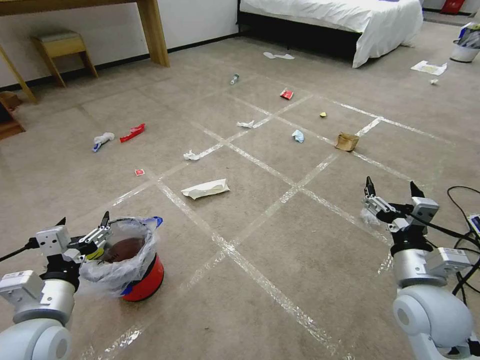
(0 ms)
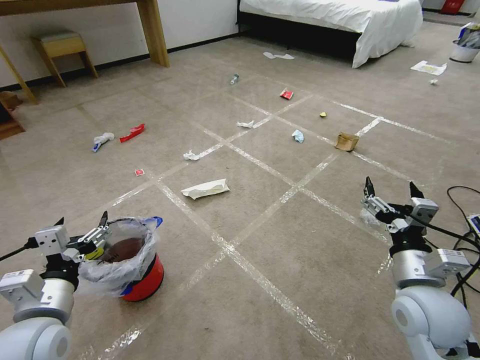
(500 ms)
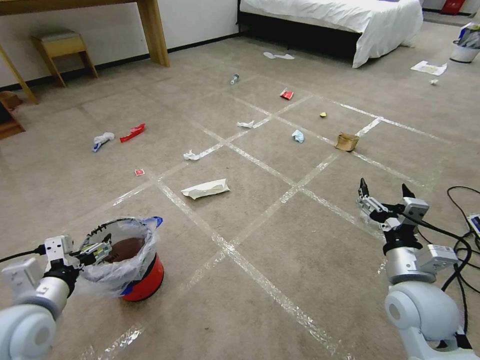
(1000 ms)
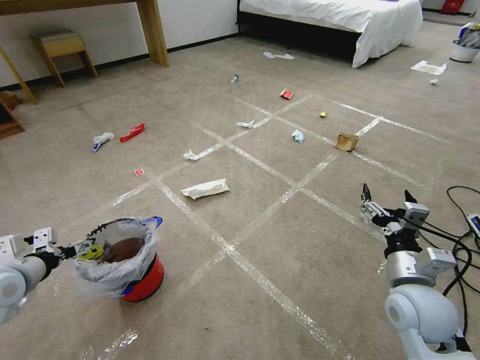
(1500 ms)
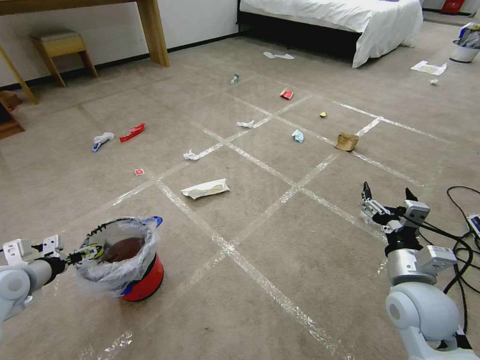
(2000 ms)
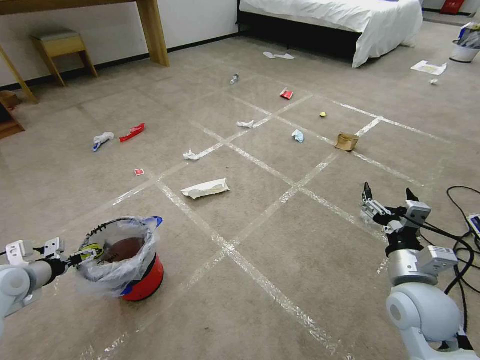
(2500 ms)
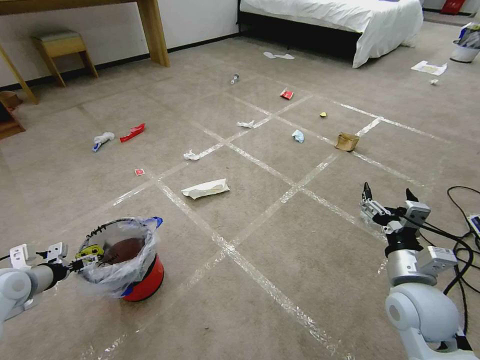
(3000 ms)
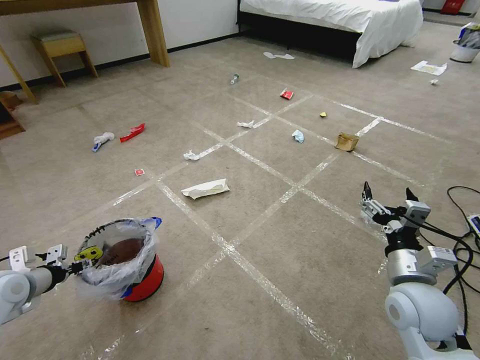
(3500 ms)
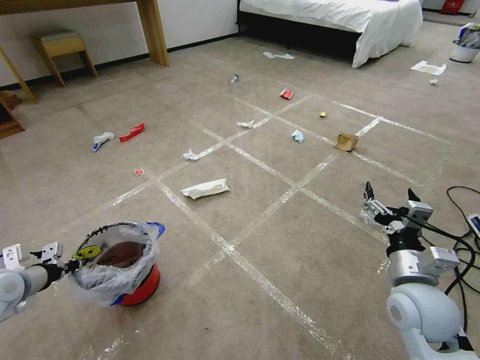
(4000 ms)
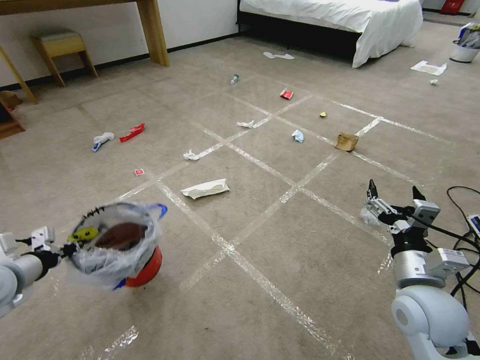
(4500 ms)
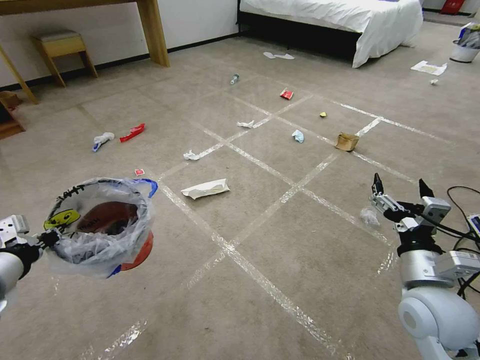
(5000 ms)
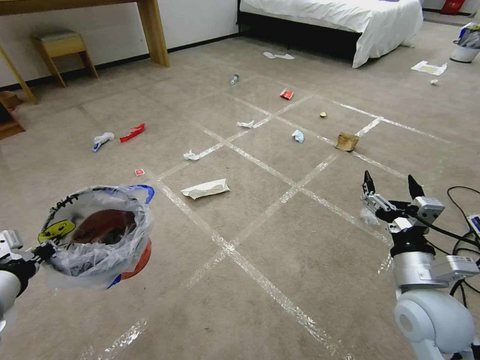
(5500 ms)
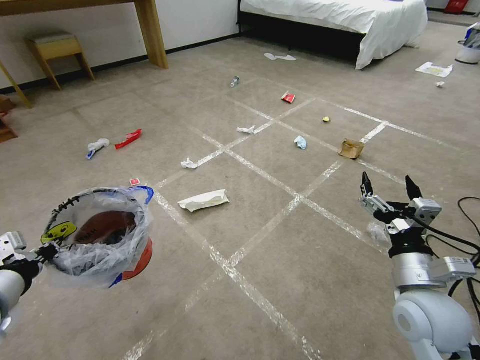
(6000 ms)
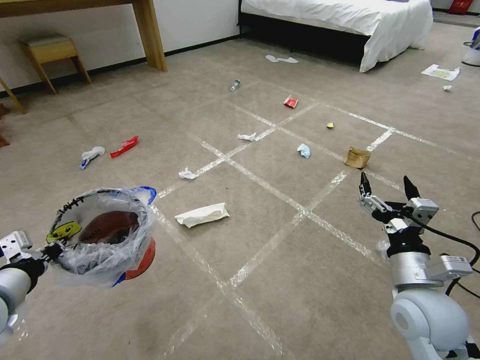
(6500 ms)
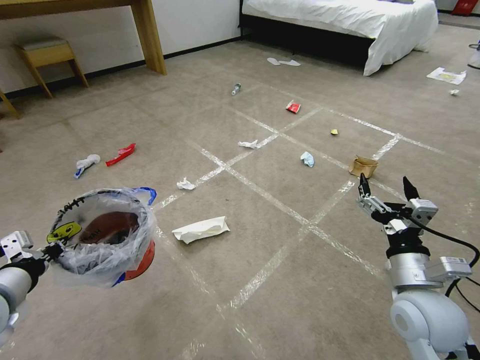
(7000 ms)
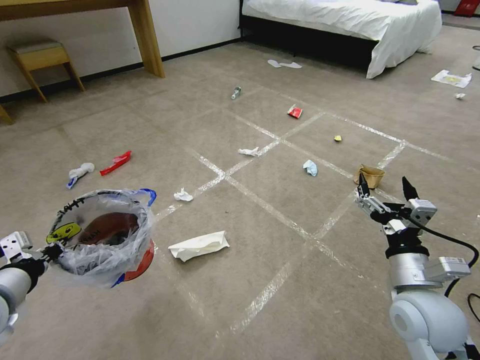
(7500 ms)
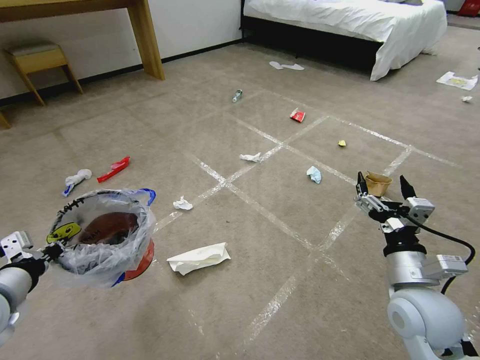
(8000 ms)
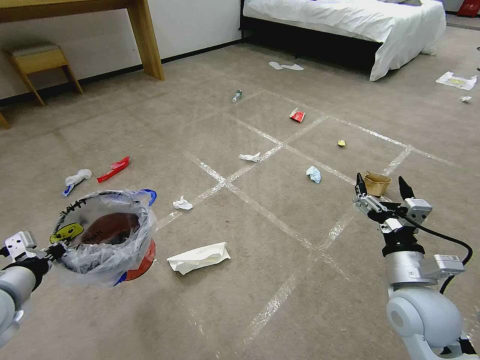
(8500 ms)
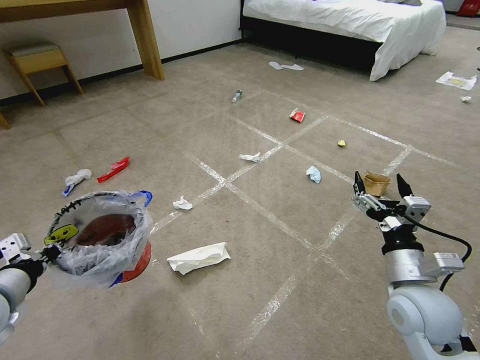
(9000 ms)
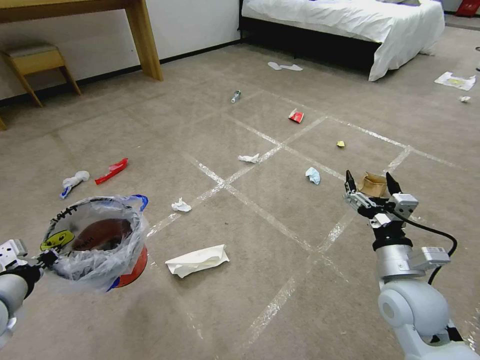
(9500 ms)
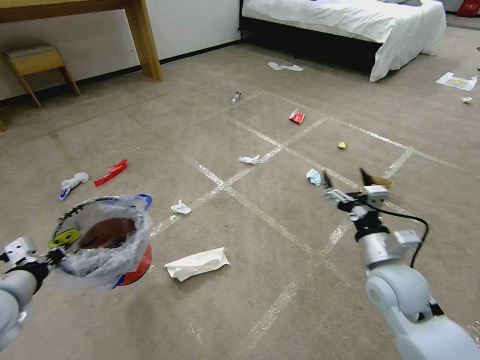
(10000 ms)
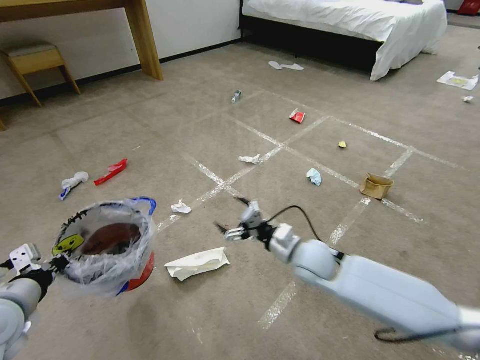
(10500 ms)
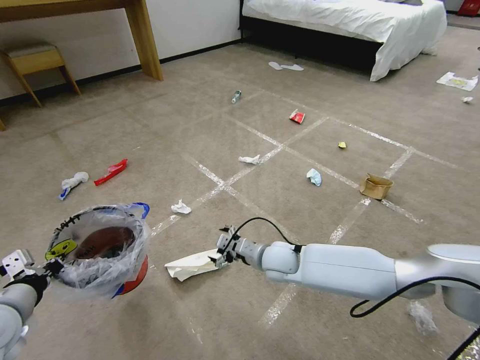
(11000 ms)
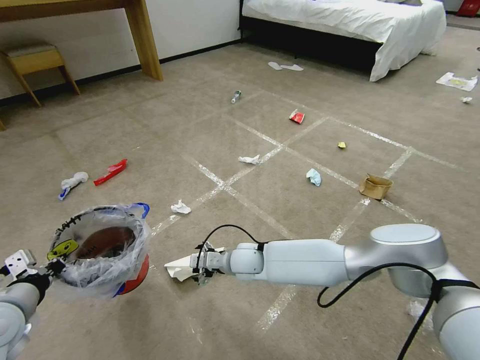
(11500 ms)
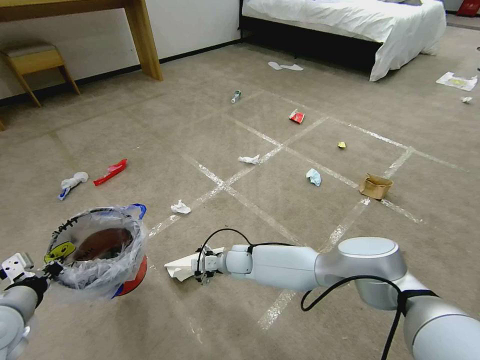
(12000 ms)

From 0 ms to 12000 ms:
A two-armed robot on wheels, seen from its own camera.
Task of the whole recording: Pick up the trash bin and place the garbage on the floor into it.
From 2000 ms to 4000 ms: The left gripper closes up.
From 4000 ms to 6000 ms: The left gripper shifts some 15 cm upward, to the right and backward.
From 8000 ms to 10000 ms: The right gripper moves forward, approximately 5 cm.
From 10000 ms to 12000 ms: The right gripper heads to the left, downward and forward, covering approximately 35 cm.

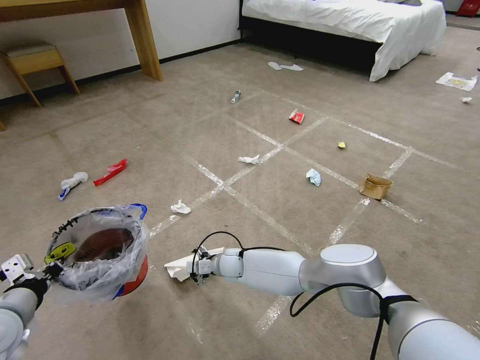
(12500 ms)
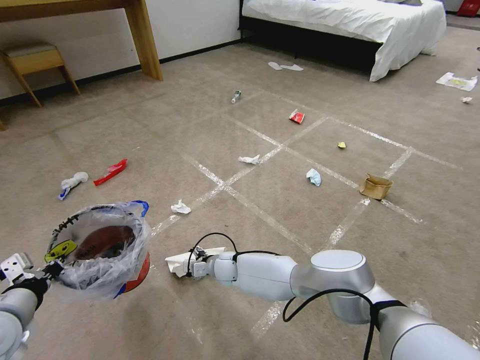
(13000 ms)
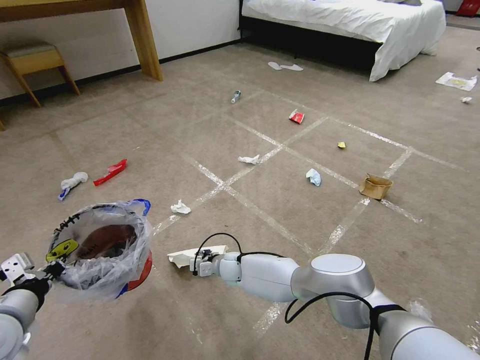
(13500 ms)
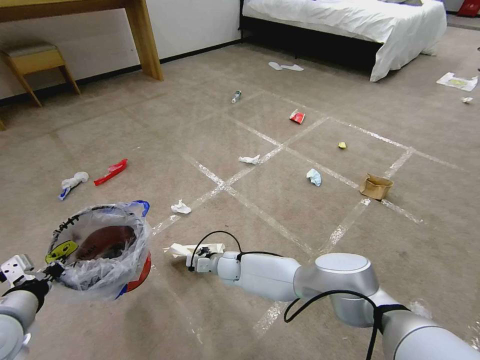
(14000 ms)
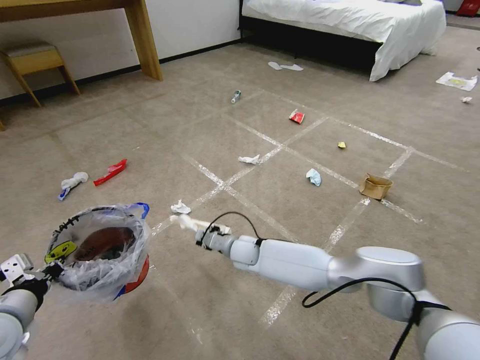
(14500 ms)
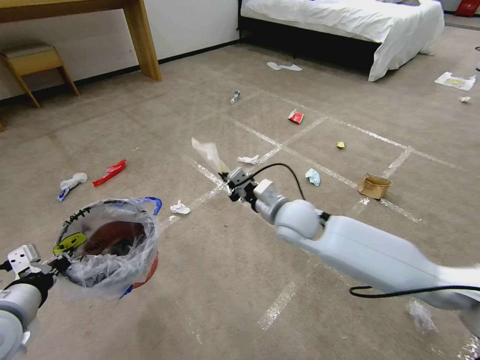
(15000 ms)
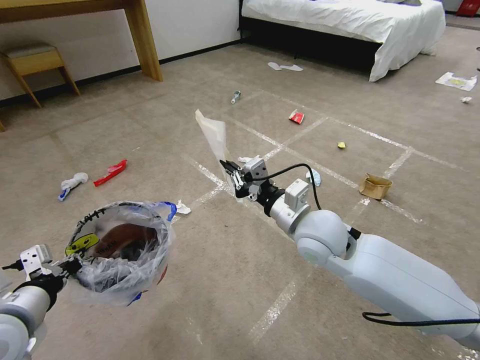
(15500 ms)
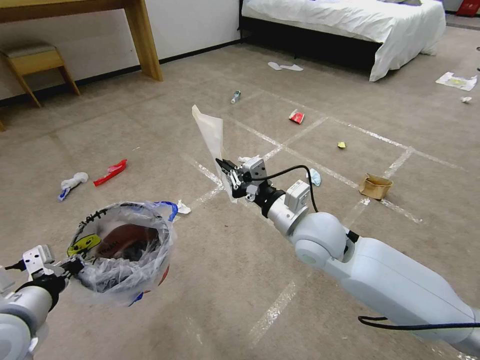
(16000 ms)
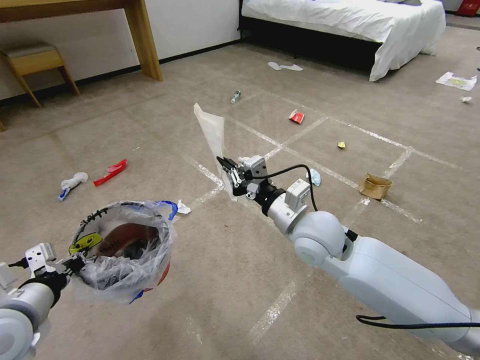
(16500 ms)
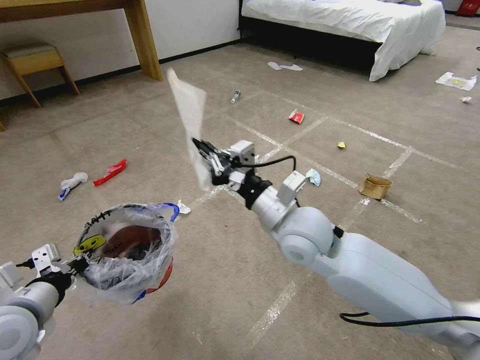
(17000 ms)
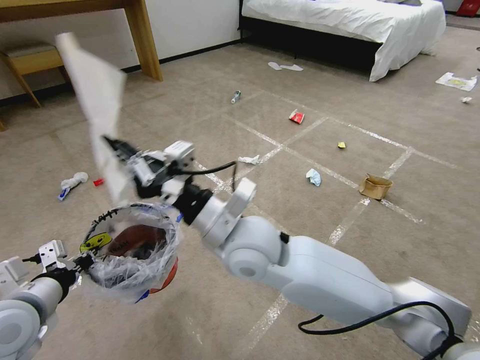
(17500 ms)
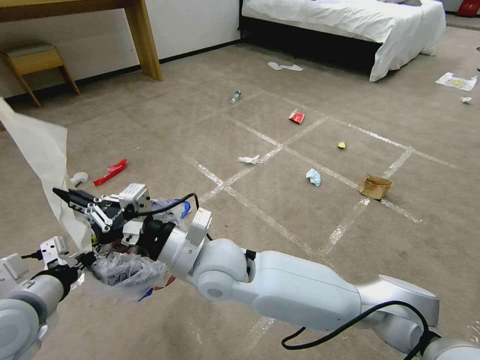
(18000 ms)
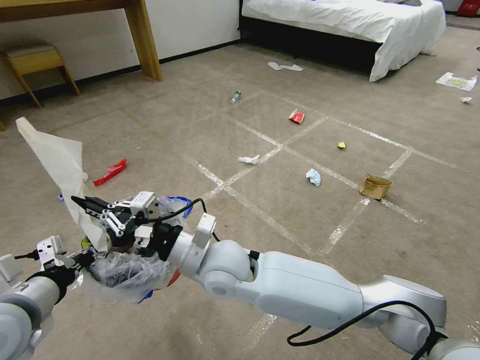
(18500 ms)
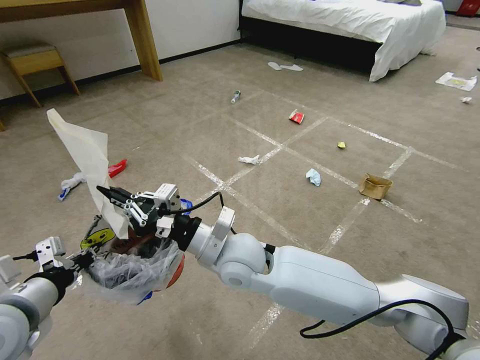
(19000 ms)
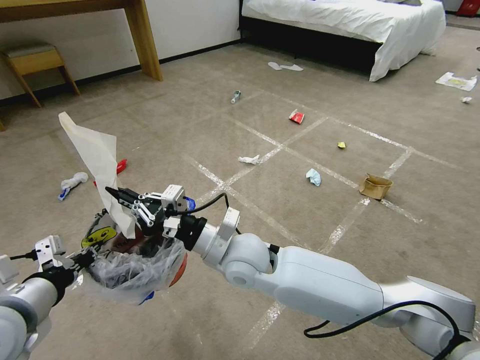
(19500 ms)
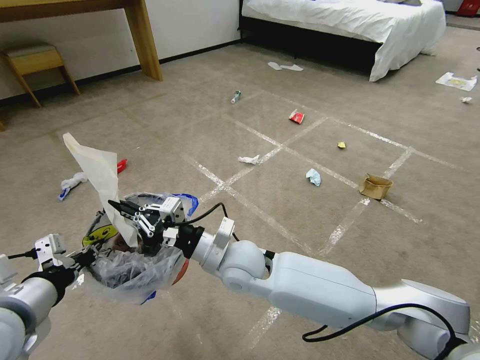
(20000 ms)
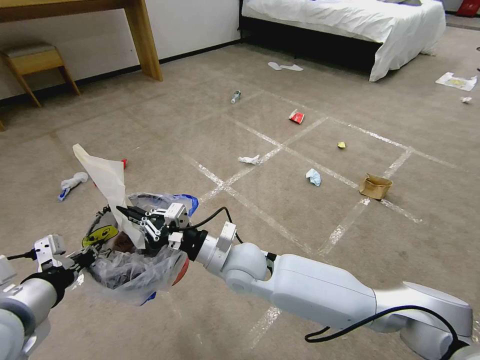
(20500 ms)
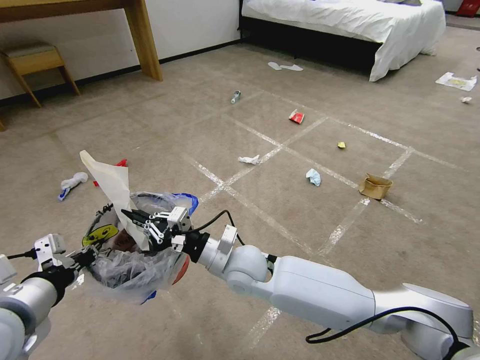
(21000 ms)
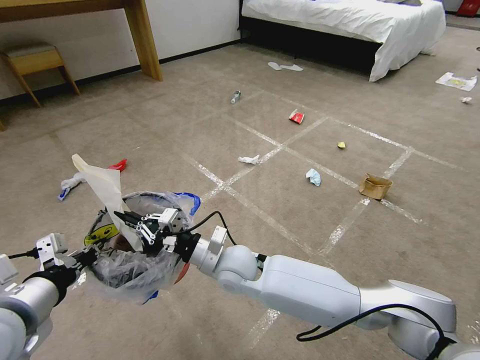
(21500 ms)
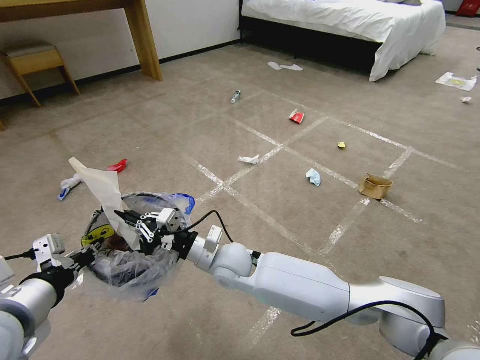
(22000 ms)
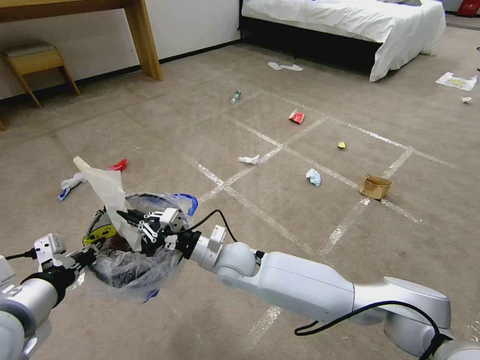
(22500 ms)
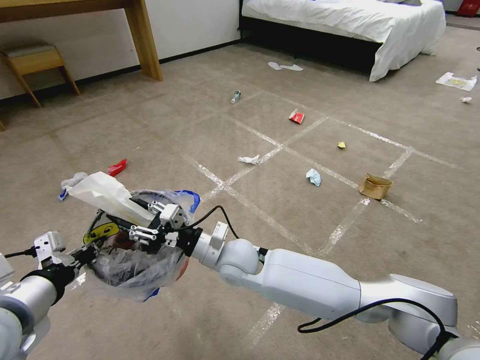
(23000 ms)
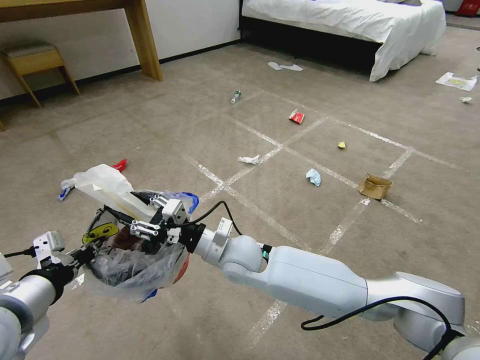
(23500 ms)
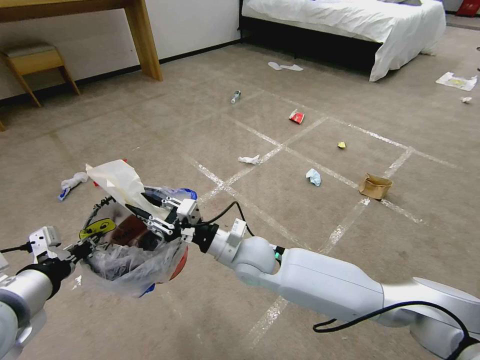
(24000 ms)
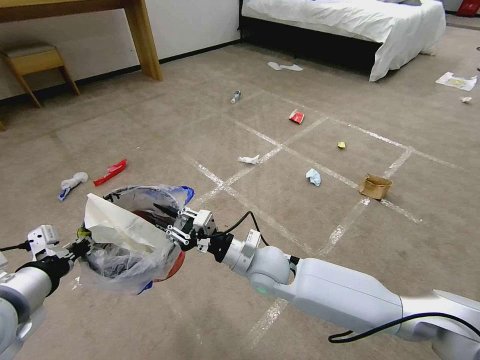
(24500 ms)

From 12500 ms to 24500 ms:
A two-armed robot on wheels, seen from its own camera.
Task of the whole recording: Pick up the trash bin and place the garbage on the floor into it.
From 12500 ms to 14500 ms: The right gripper moves upward, some 5 cm, and closes its fingers.
From 14500 ms to 16500 ms: The right gripper goes about 25 cm upward, to the right and backward.
From 16500 ms to 18500 ms: The right gripper goes roughly 20 cm to the left.
From 18500 ms to 20500 ms: The right gripper travels downward by about 5 cm.
From 20500 ms to 22500 ms: The right gripper shifts by some 5 cm.
From 22500 ms to 24500 ms: The right gripper heads to the right, covering some 5 cm.

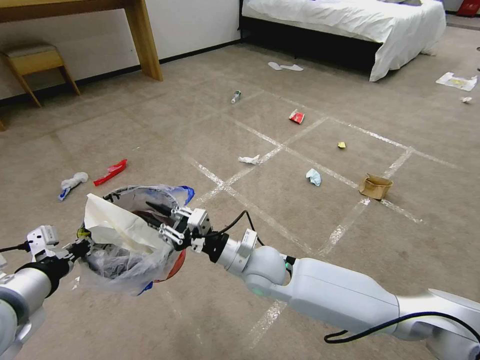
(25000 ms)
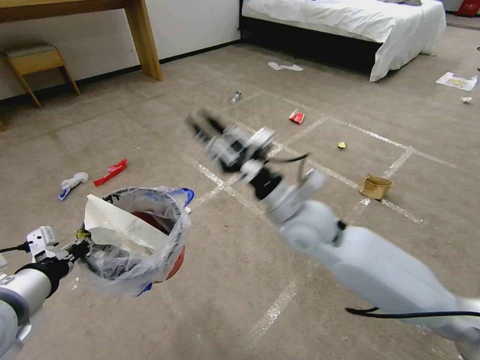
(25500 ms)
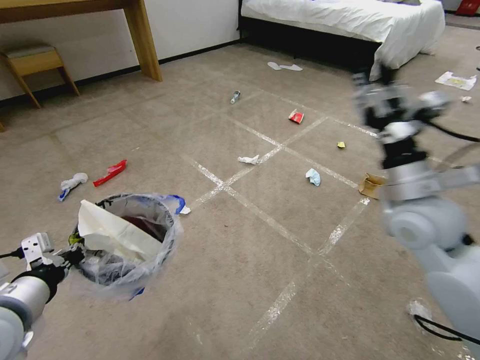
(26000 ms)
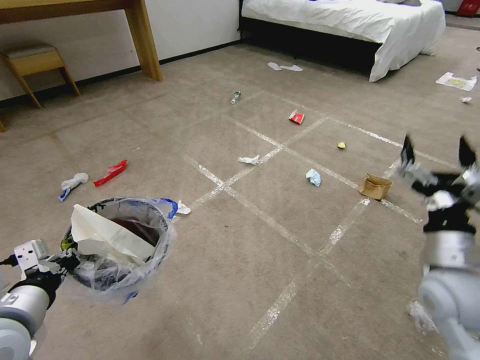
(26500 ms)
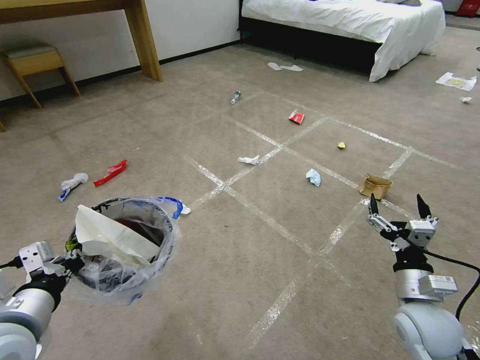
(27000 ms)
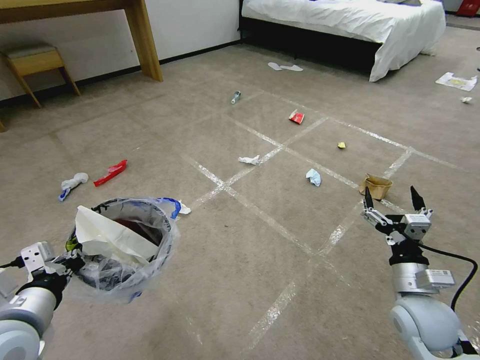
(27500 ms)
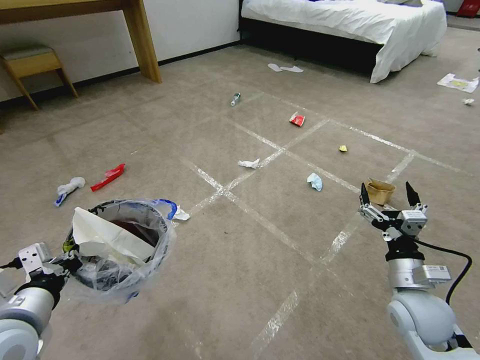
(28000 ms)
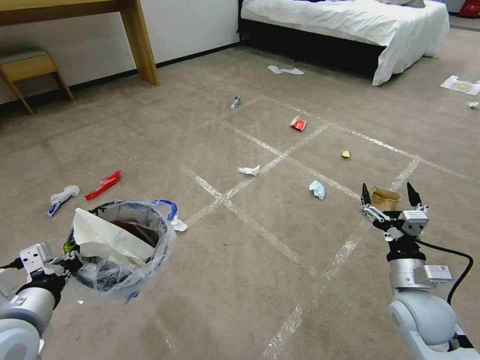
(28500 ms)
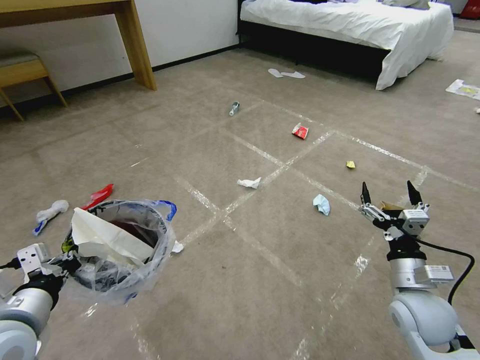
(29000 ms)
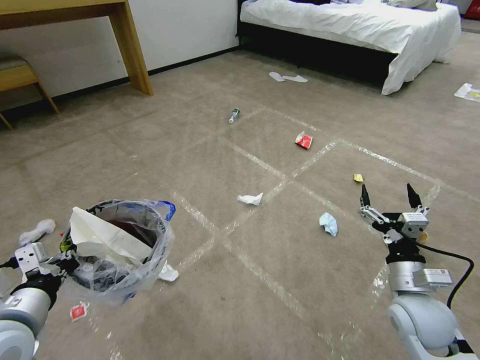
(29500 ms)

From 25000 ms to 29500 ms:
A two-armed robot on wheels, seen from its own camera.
Task of the whole recording: Pick up the trash bin and place the garbage on the floor into it.
From 25000 ms to 27000 ms: The right gripper travels to the right by about 30 cm, and opens its fingers.
